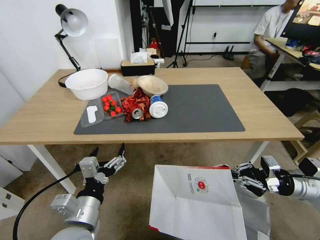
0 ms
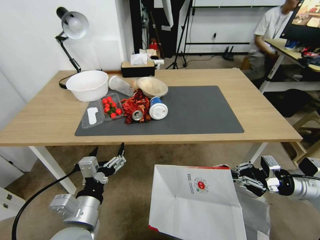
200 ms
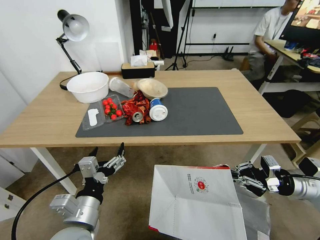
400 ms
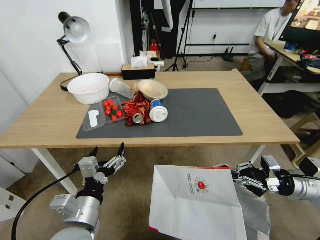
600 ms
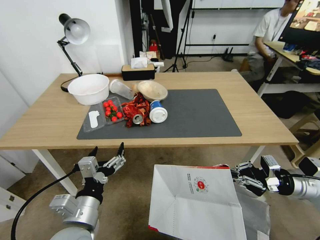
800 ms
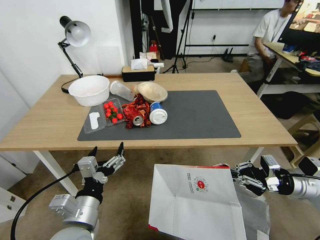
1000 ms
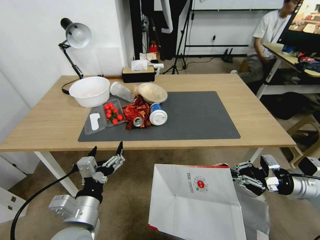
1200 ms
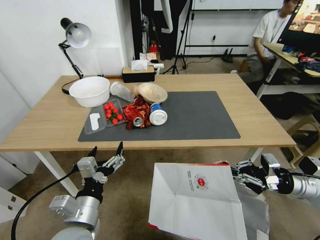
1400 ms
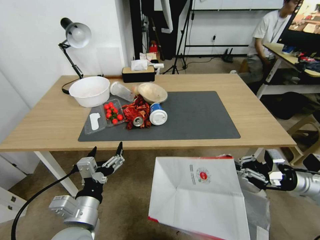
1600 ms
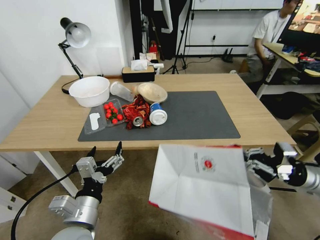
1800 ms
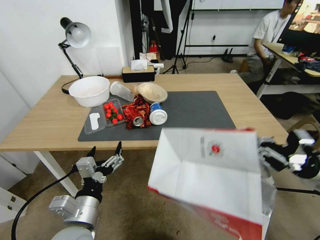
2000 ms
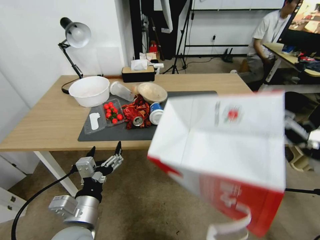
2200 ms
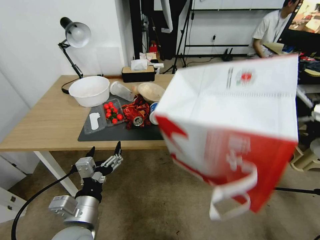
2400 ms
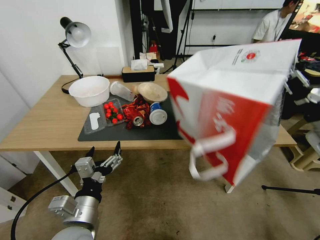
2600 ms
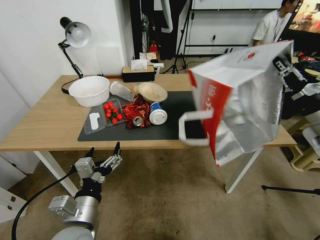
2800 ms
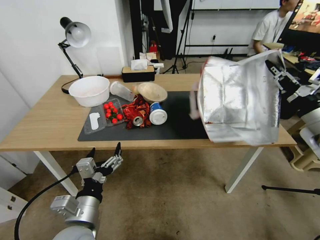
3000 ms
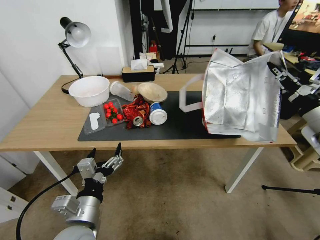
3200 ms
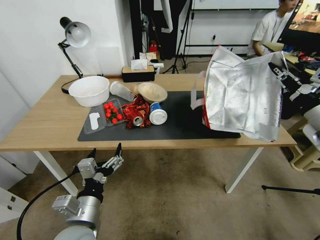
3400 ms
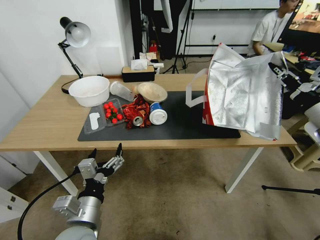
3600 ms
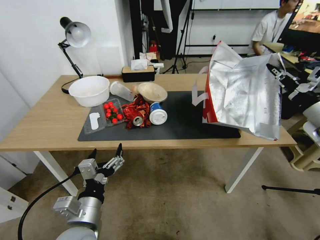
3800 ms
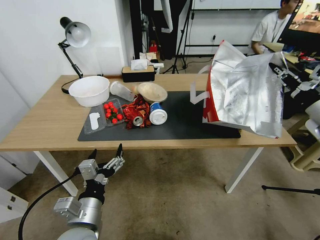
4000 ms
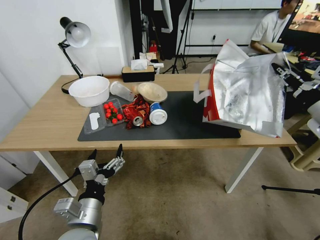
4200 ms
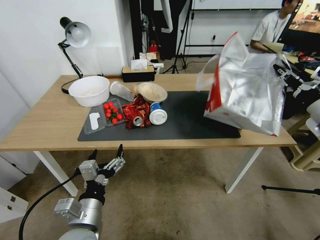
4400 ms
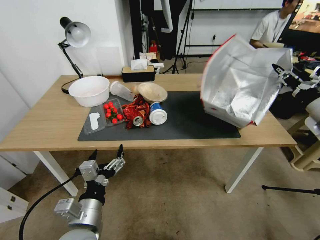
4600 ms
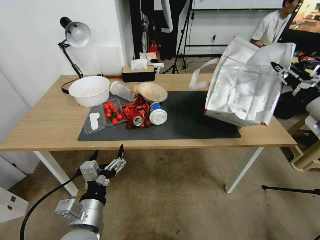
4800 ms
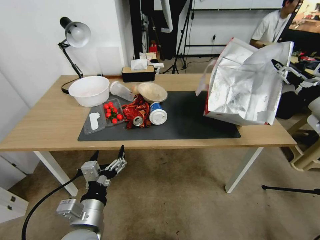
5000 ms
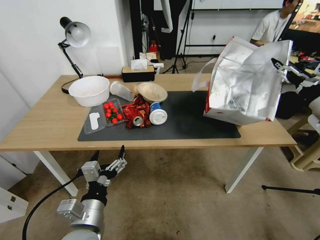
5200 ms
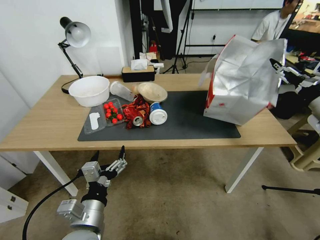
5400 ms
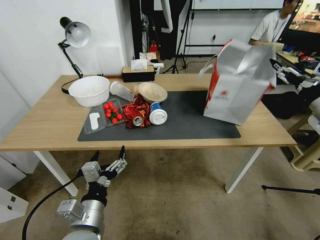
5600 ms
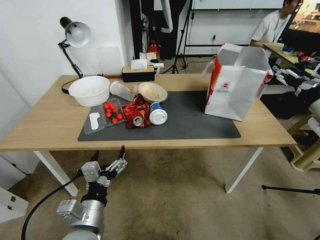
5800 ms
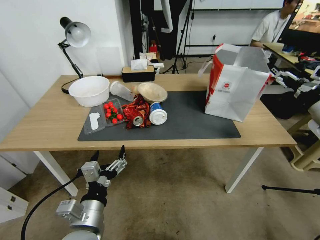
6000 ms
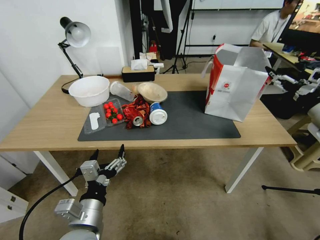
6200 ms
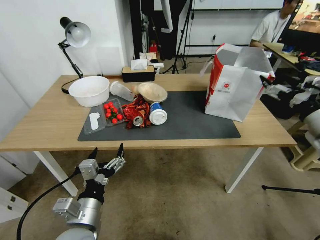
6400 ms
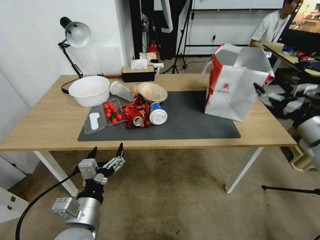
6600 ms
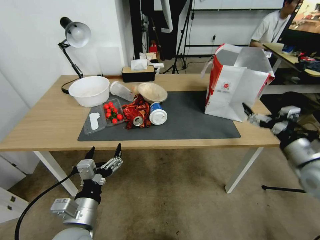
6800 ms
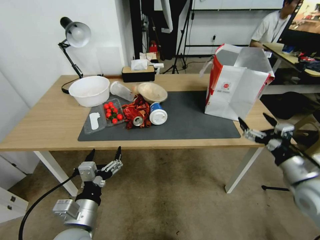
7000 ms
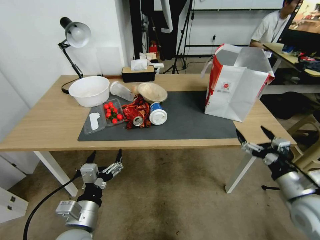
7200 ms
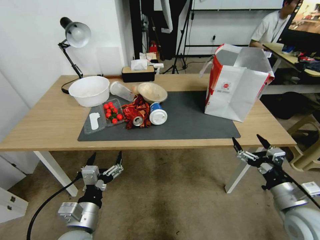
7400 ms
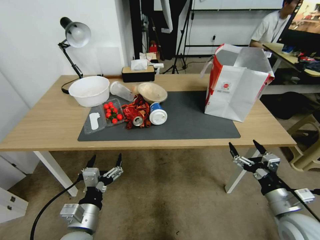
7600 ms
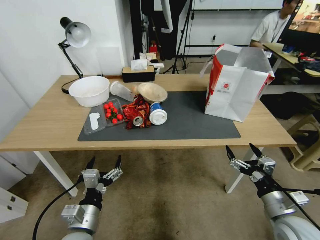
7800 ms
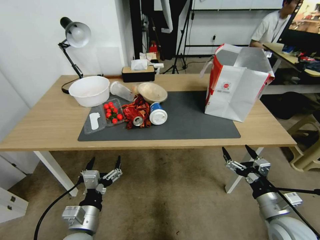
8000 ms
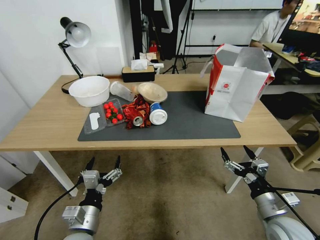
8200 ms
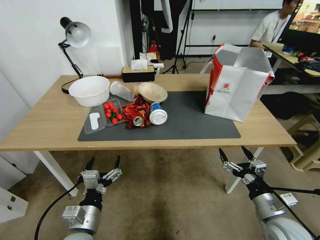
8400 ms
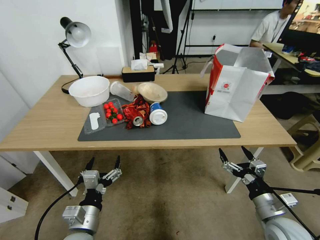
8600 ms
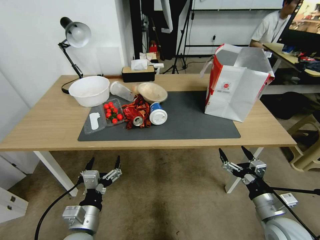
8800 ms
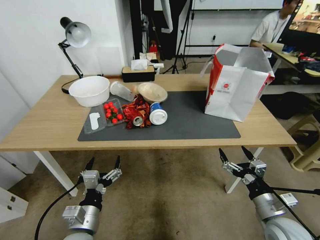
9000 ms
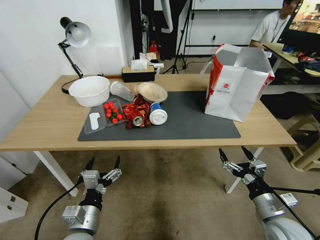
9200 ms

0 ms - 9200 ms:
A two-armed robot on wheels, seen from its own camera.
Task of the whole recording: Pick up the food delivery bag from the floor and place it on the table.
1600 ms - 3000 ms: The right gripper goes about 15 cm upward.
3000 ms - 4600 ms: The right gripper moves some 5 cm.
4600 ms - 6200 ms: The right gripper opens.
6200 ms - 7600 ms: The left gripper goes about 5 cm downward, while the right gripper is displaced downward, backward and to the left by roughly 30 cm.
7600 ms - 9200 ms: There are only small adjustments of the grippers.

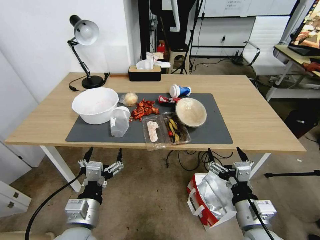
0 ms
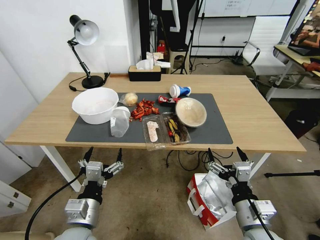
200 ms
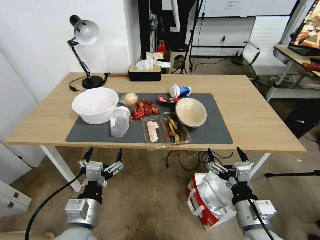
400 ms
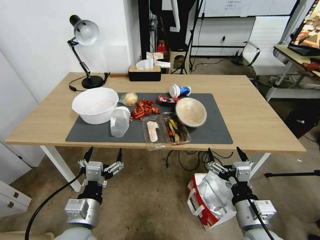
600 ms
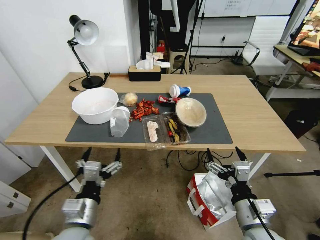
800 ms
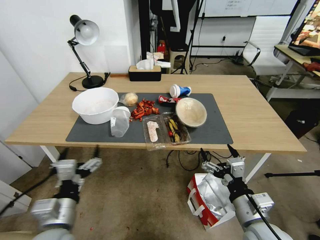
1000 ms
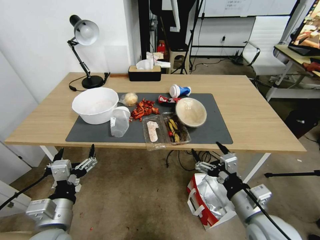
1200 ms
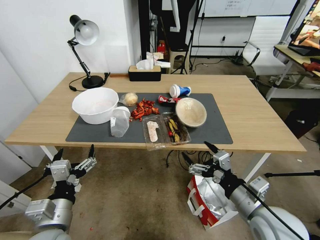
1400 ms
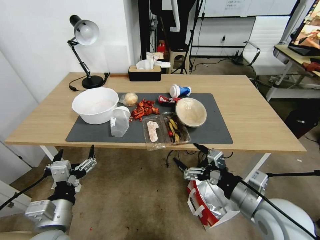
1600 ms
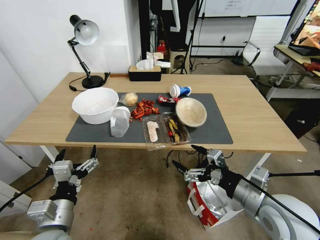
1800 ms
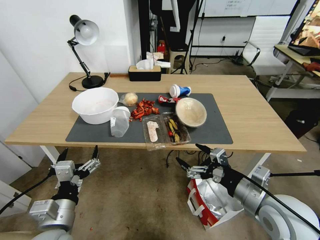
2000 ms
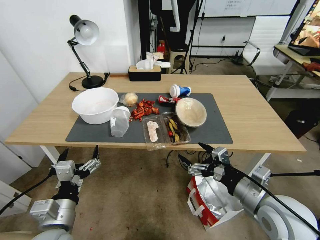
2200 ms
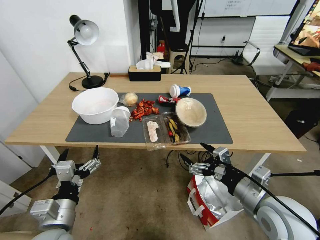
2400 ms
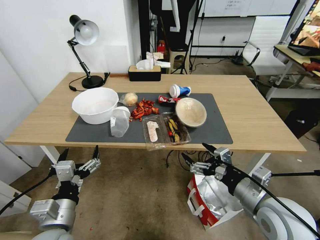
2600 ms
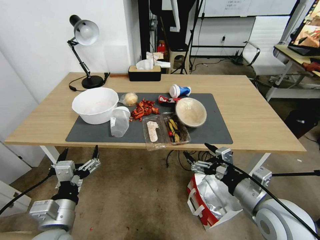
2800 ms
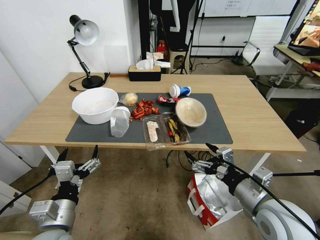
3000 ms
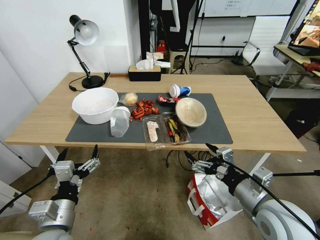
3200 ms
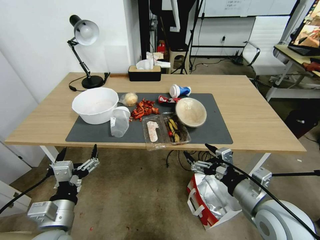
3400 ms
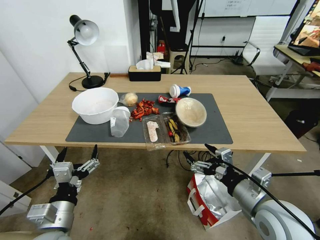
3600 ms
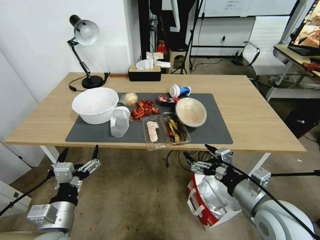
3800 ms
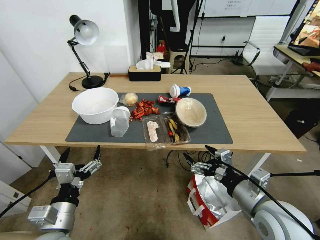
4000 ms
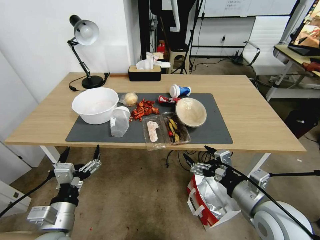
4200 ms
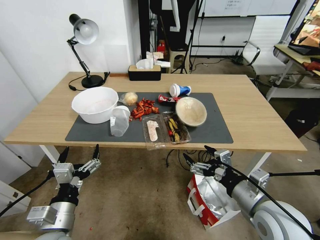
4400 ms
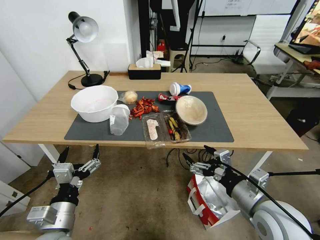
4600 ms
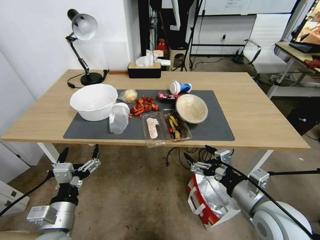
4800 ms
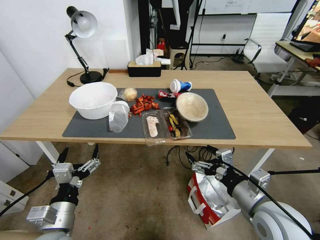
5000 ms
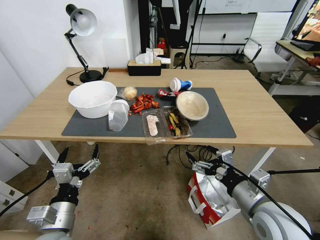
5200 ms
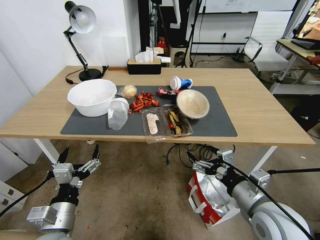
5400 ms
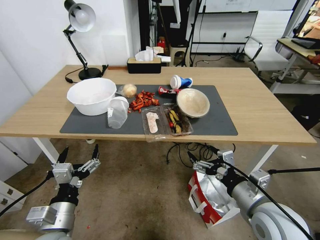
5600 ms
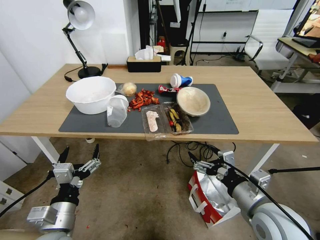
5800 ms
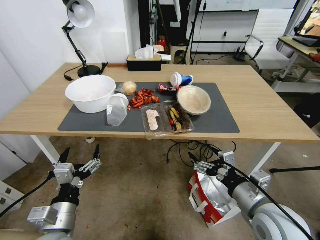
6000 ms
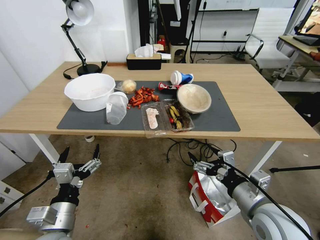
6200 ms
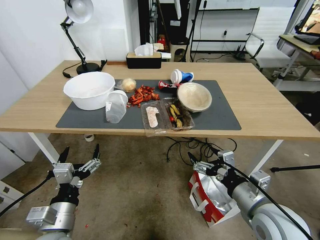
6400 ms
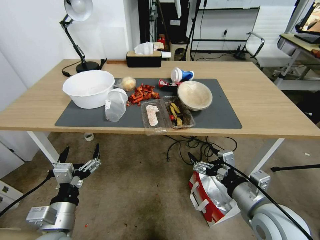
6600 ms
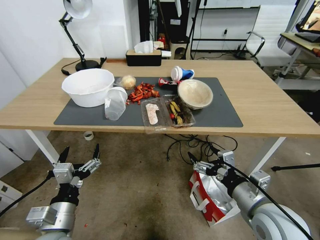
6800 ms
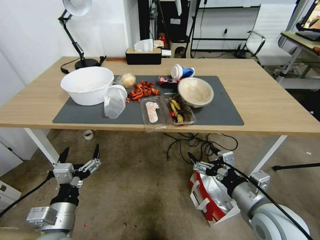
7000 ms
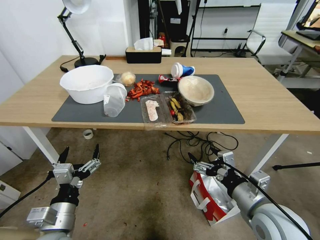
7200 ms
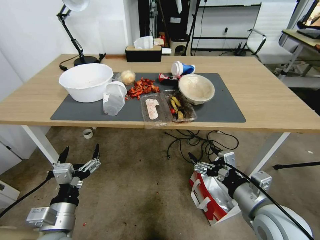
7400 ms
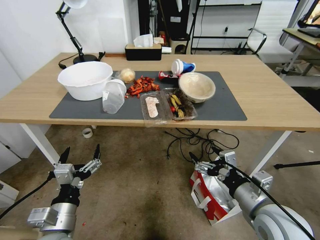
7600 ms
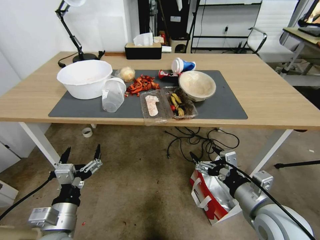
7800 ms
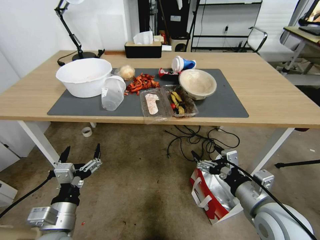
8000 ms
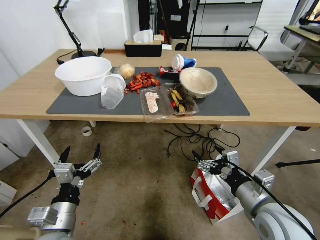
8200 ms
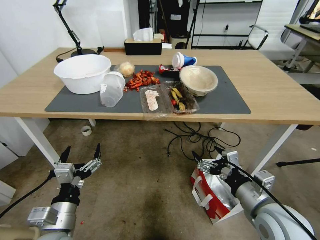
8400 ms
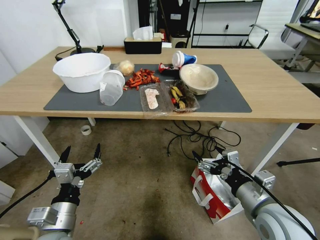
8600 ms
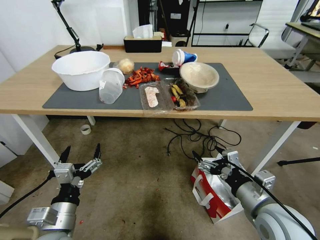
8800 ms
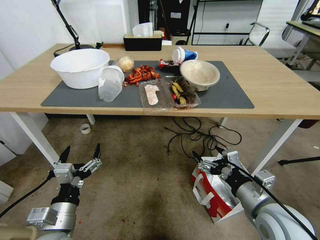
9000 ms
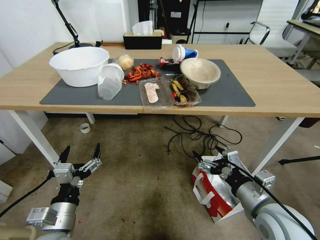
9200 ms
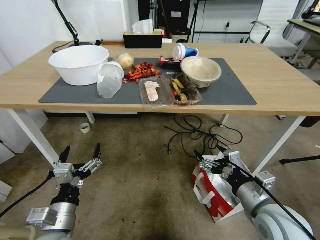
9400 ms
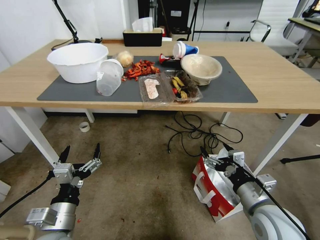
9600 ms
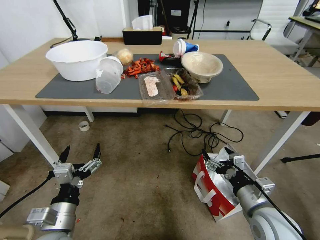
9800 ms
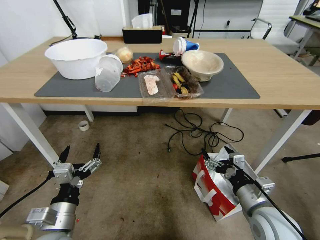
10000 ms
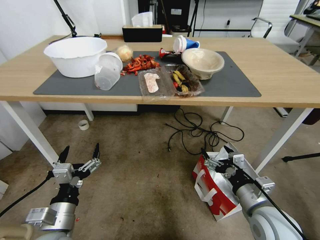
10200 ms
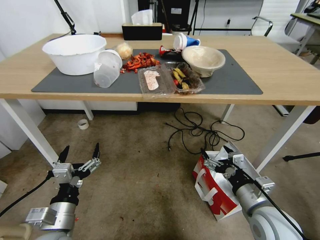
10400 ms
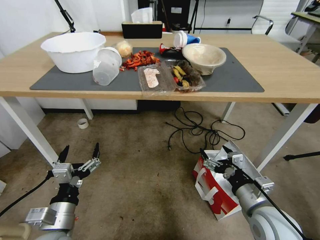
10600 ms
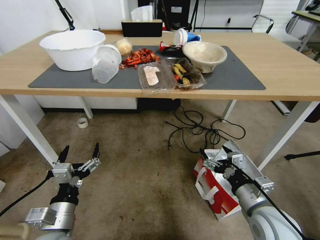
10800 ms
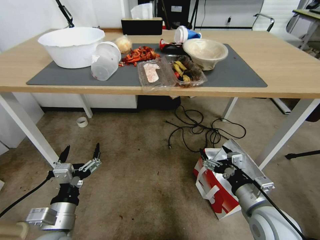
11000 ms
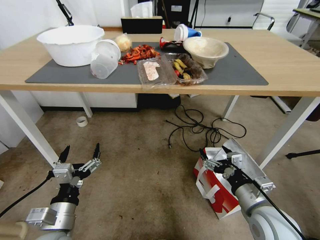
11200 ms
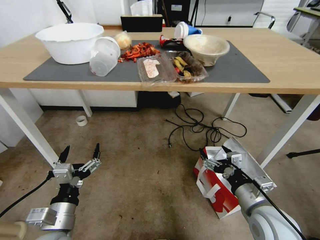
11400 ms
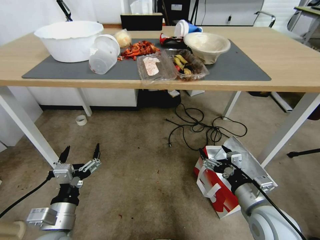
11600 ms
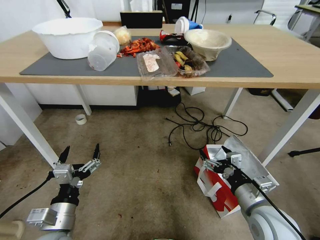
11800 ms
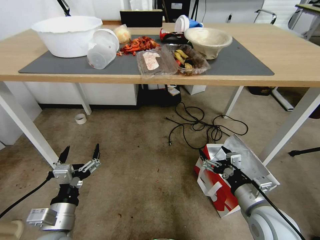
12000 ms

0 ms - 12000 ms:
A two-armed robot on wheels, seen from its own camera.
Task of the whole recording: Pick up the food delivery bag from the floor and place it on the table.
1600 ms - 4400 ms: There are only small adjustments of the grippers.

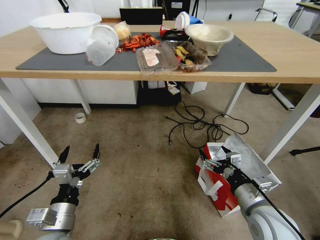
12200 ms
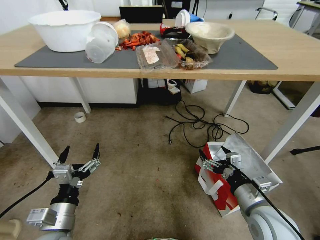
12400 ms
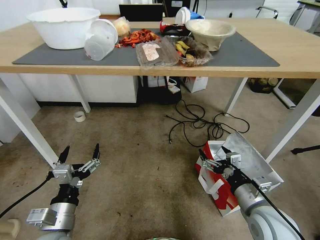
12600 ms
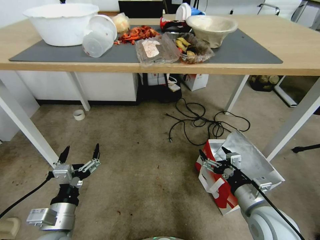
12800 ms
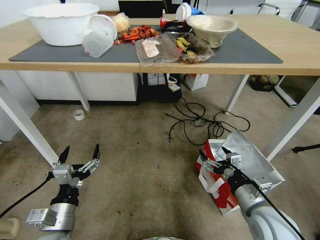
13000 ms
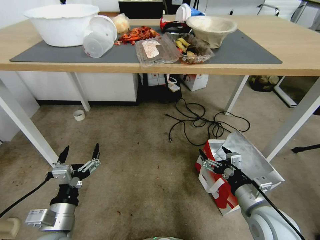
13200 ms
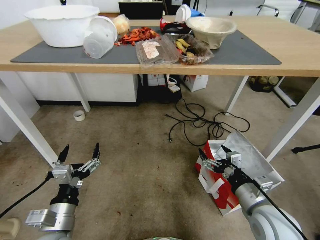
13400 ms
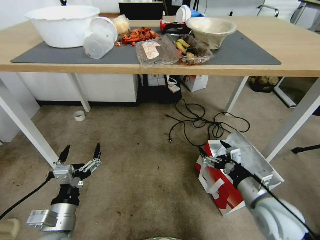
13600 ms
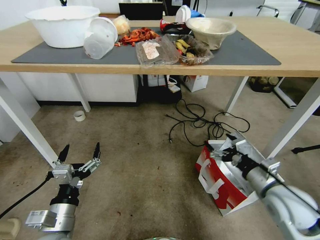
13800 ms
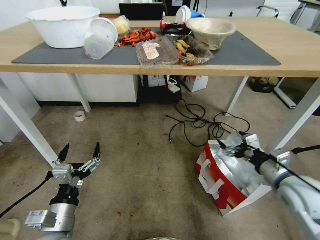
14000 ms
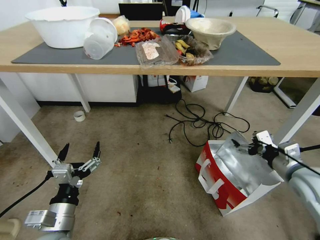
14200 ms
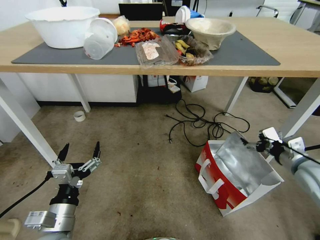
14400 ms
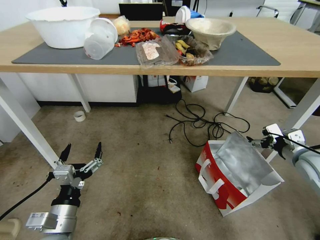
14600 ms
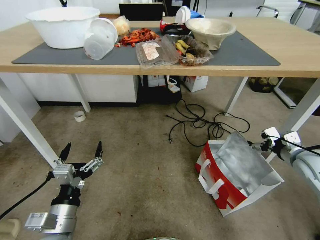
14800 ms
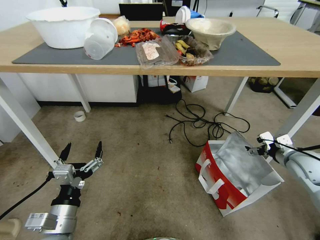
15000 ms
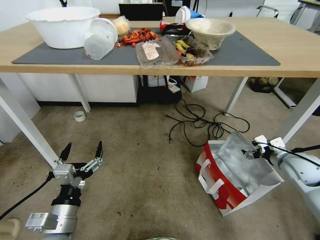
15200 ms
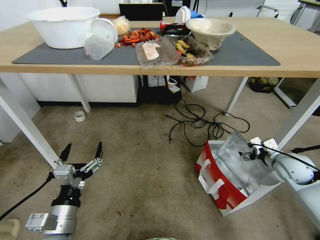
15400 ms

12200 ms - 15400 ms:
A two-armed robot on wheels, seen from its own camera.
Task of the whole recording: Pick up the food delivery bag from the floor and place it on the table.
12200 ms - 13800 ms: The right gripper shifts by about 5 cm.
13800 ms - 15400 ms: The right gripper travels forward and to the right by roughly 15 cm.
